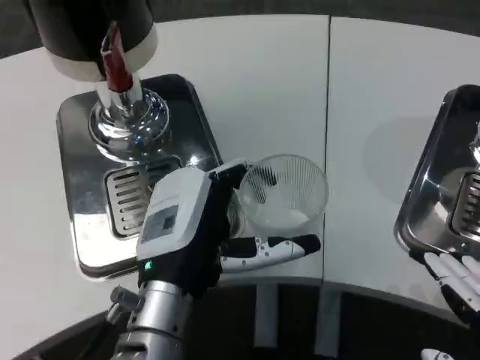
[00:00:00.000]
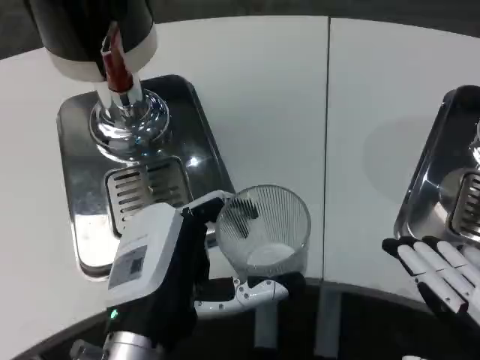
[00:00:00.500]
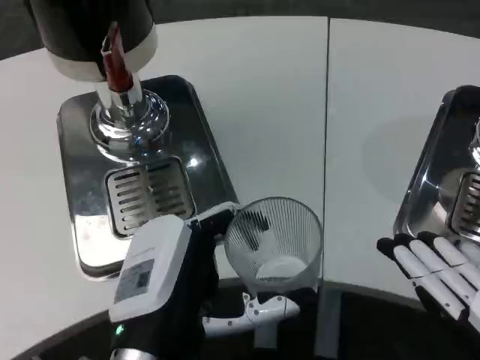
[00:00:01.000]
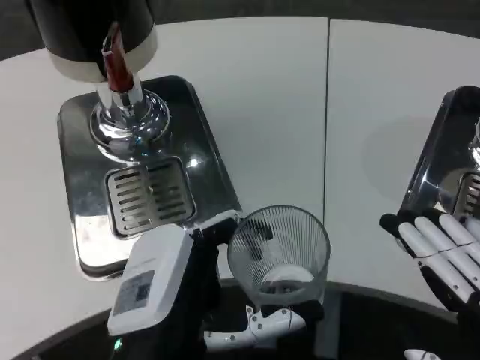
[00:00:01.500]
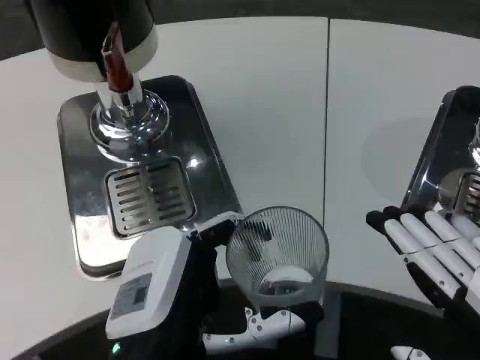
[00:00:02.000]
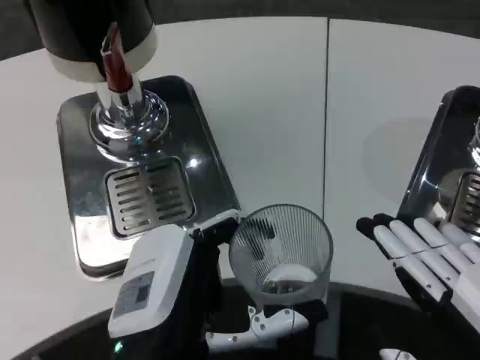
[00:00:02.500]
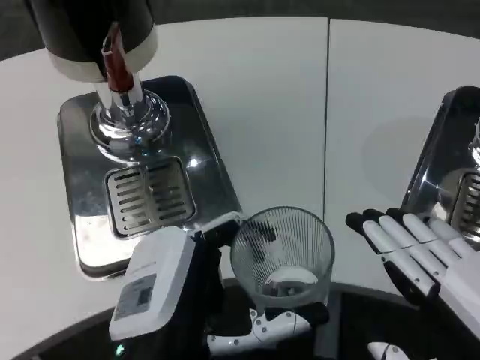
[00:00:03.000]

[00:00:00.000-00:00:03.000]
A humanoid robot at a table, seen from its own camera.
Task of the whole recording: Grasp the cup under the faucet to collect the drink, then remove the cup.
00:00:00.000 to 00:00:01.500: The left hand shifts roughly 10 cm backward.
00:00:01.500 to 00:00:03.000: The hands make only small movements.

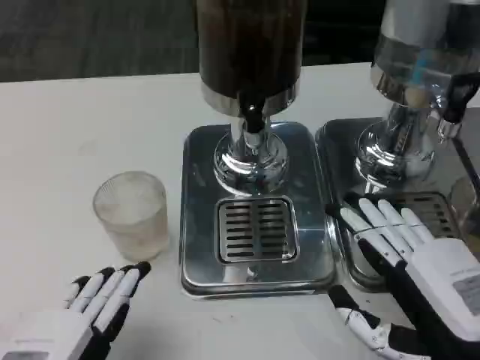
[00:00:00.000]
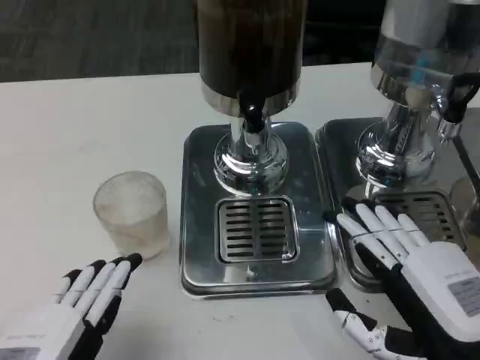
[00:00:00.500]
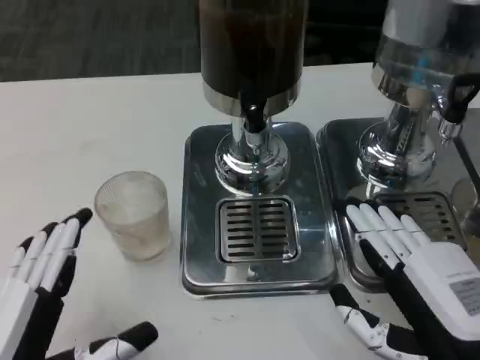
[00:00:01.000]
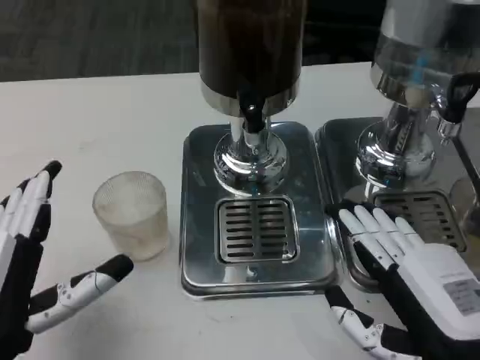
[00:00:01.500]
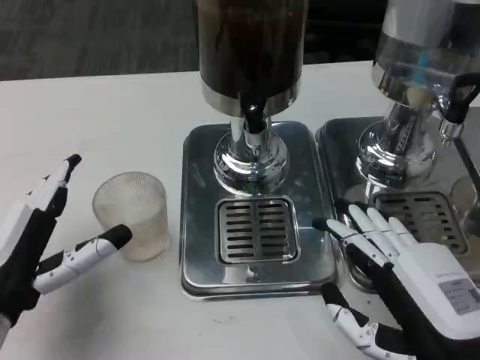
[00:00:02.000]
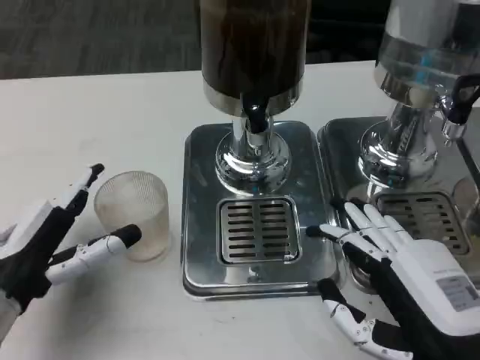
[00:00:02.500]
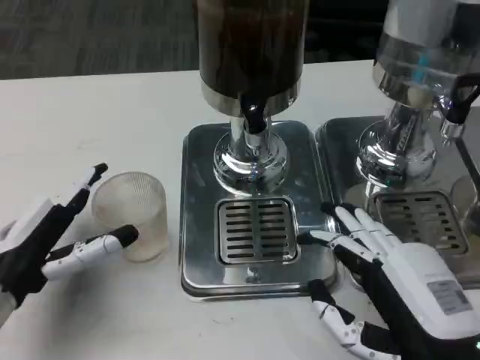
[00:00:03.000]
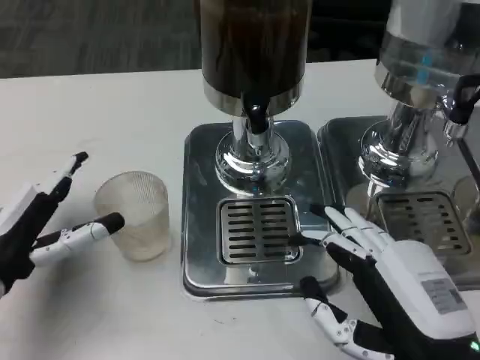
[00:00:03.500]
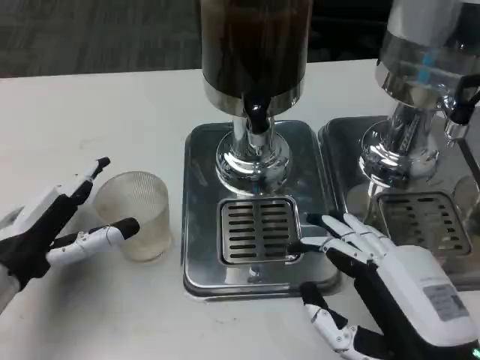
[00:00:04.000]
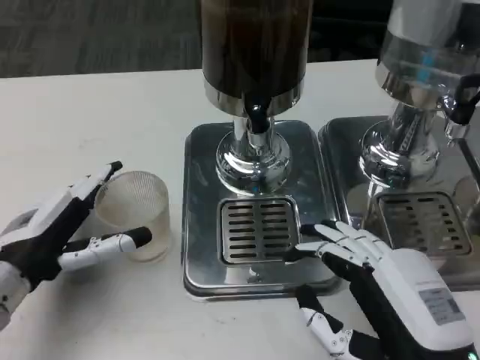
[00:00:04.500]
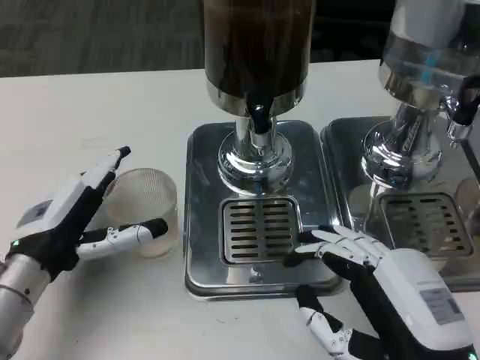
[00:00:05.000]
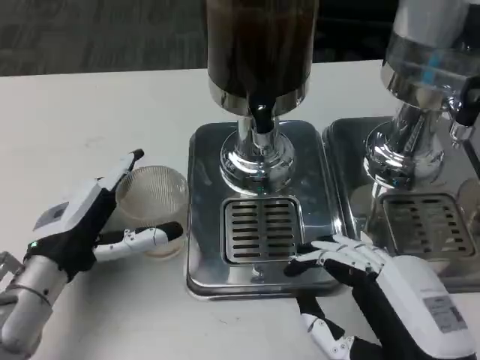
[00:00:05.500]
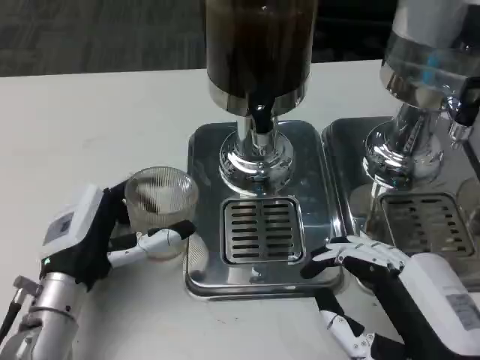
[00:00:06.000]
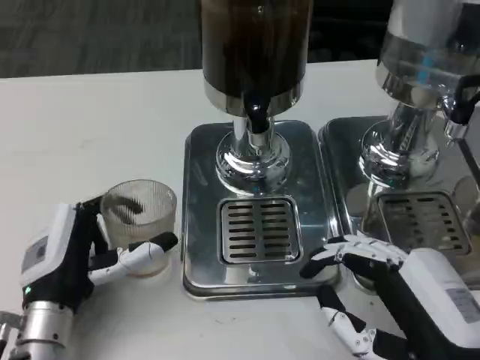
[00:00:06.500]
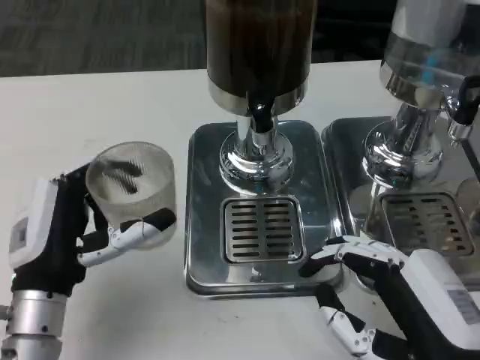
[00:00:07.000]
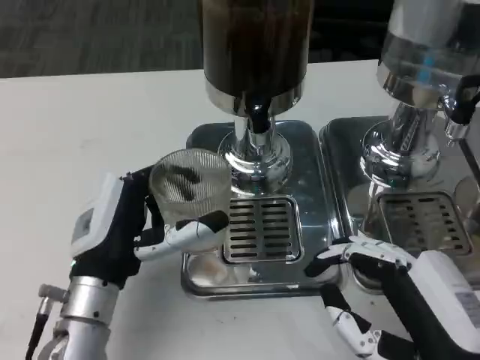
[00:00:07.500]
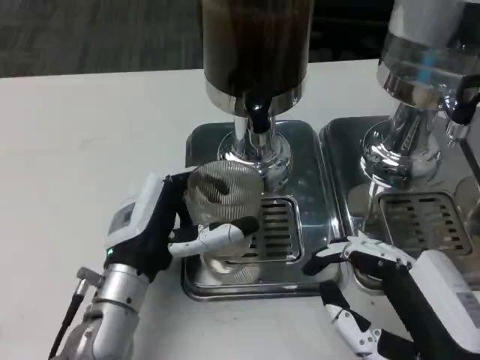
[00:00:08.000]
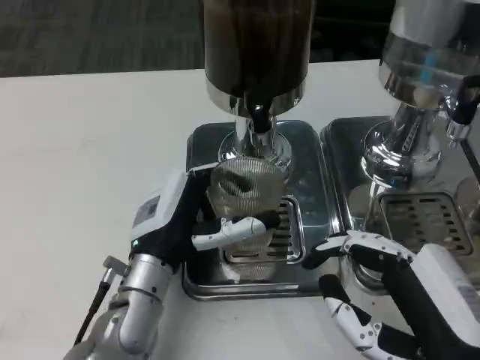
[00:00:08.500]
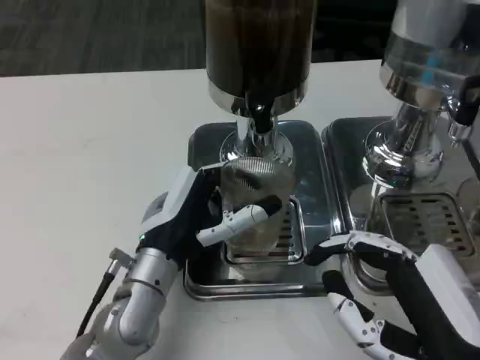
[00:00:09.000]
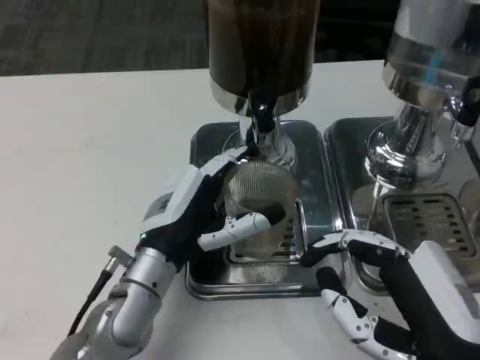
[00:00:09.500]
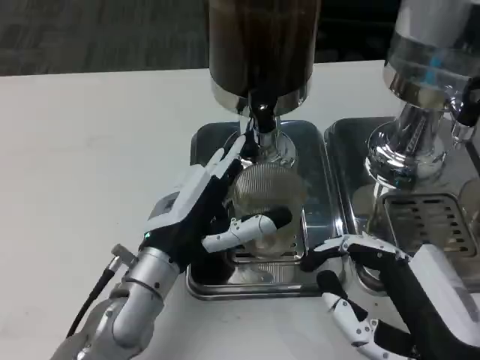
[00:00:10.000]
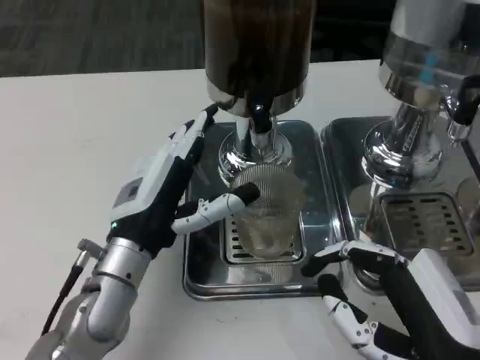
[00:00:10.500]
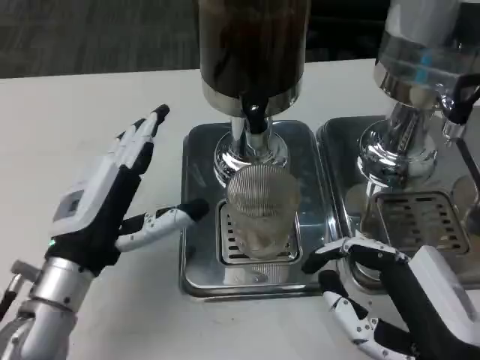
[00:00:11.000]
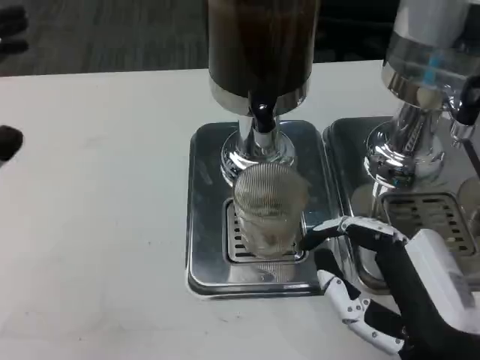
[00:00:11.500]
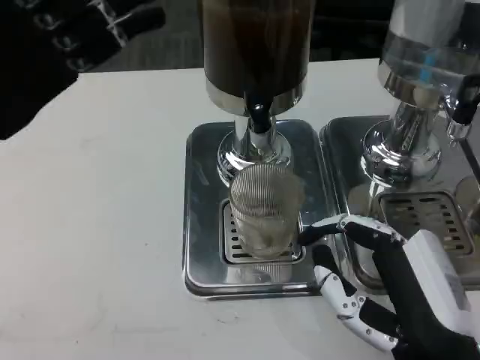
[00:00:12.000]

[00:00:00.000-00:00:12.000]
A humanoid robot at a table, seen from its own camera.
Task of the whole recording: Grasp the cup under the faucet to collect the drink, then remove the cup.
00:00:00.000 to 00:00:02.000: The left hand travels forward by approximately 10 cm.
00:00:02.000 to 00:00:04.000: The left hand moves forward, roughly 5 cm.
00:00:04.000 to 00:00:06.000: The left hand is displaced to the right by approximately 5 cm.
00:00:06.000 to 00:00:08.000: The left hand heads to the right, covering approximately 5 cm.
00:00:10.000 to 00:00:12.000: The left hand moves upward and to the left, roughly 25 cm.

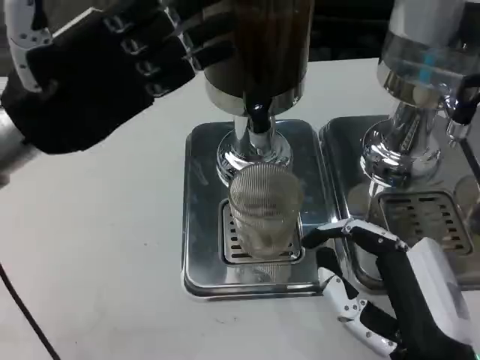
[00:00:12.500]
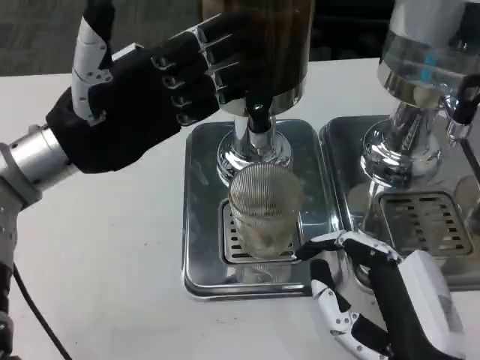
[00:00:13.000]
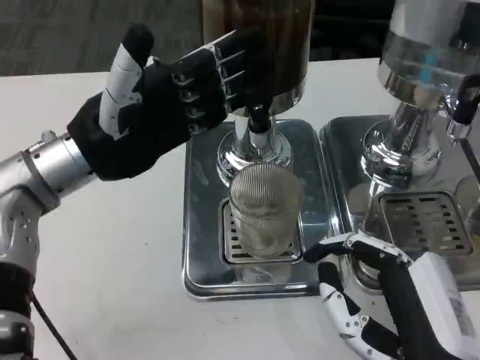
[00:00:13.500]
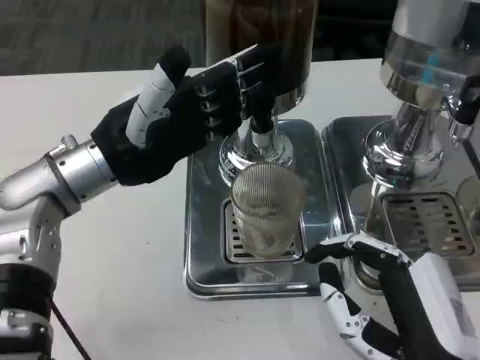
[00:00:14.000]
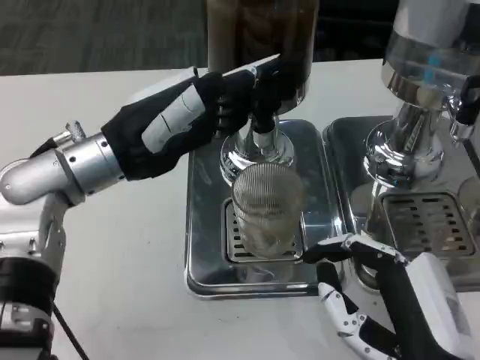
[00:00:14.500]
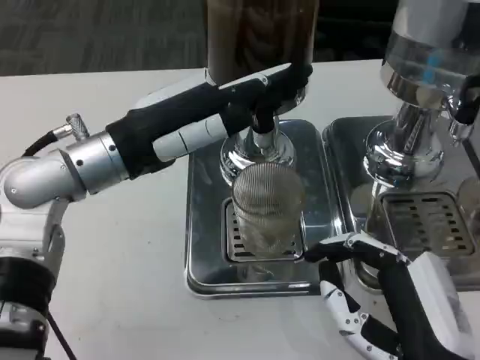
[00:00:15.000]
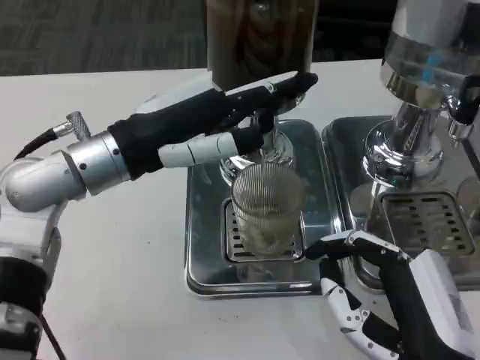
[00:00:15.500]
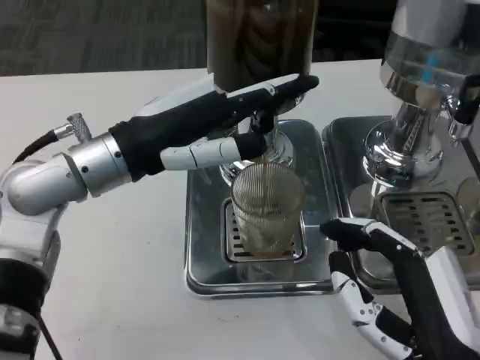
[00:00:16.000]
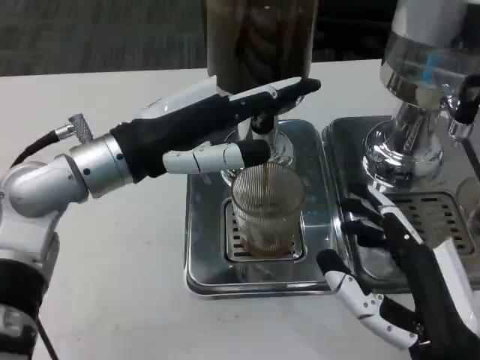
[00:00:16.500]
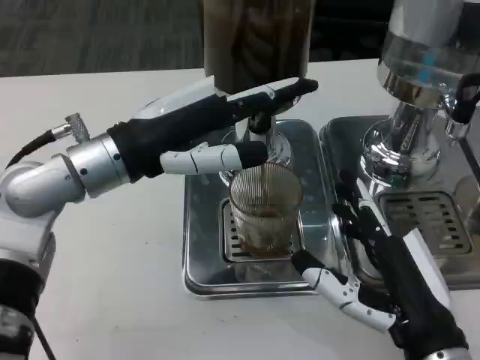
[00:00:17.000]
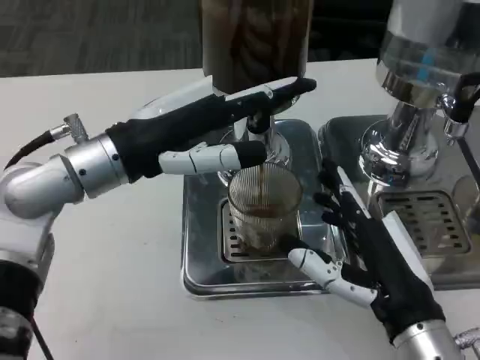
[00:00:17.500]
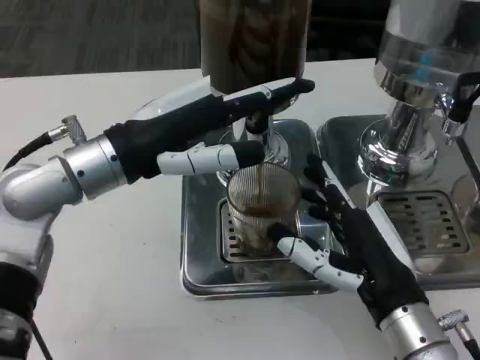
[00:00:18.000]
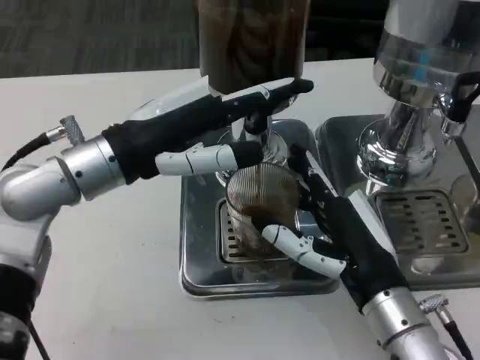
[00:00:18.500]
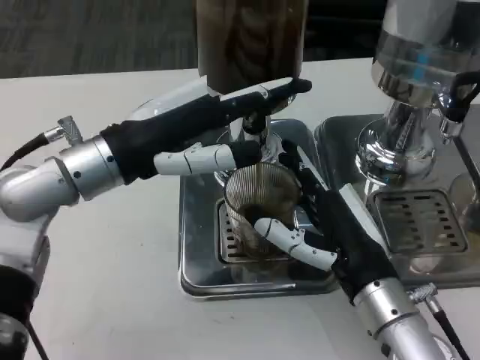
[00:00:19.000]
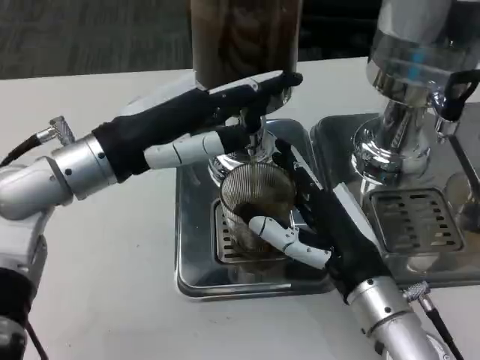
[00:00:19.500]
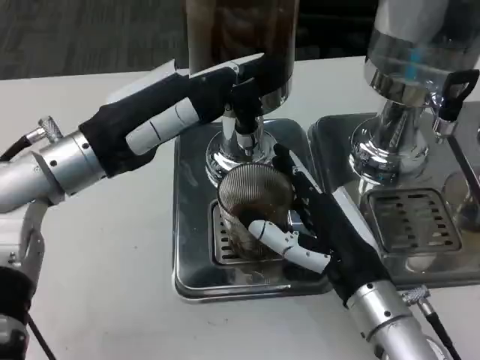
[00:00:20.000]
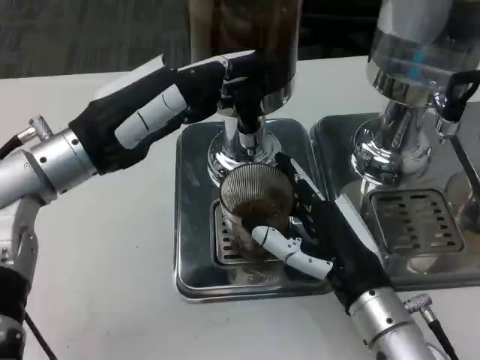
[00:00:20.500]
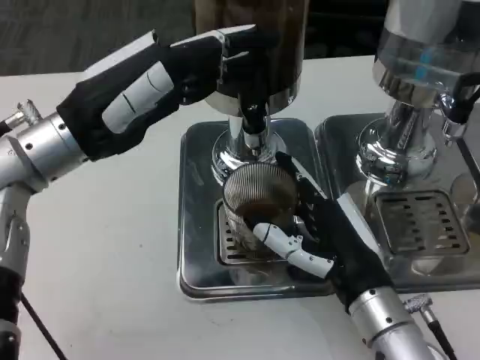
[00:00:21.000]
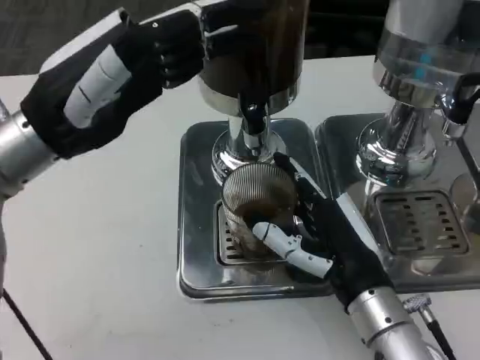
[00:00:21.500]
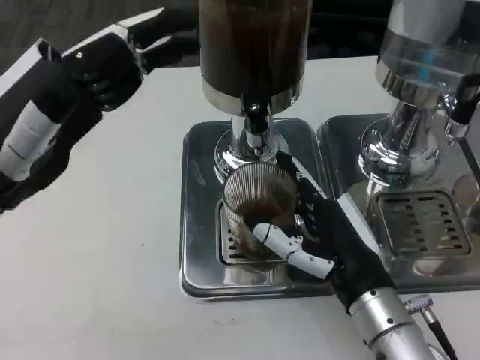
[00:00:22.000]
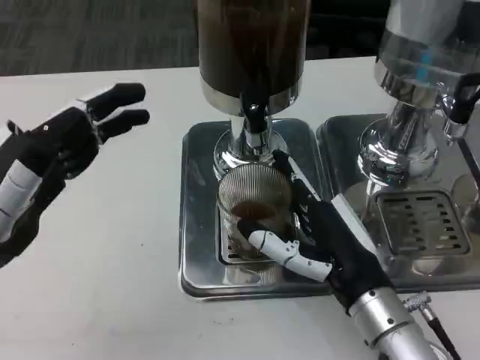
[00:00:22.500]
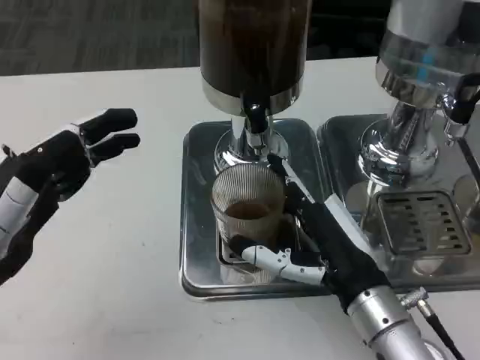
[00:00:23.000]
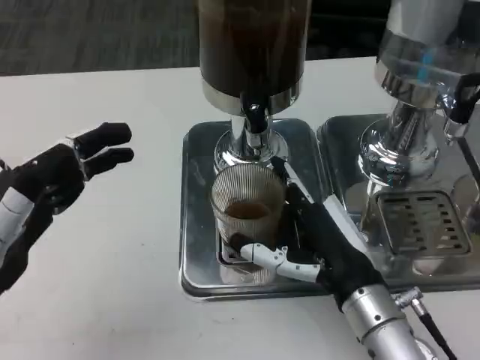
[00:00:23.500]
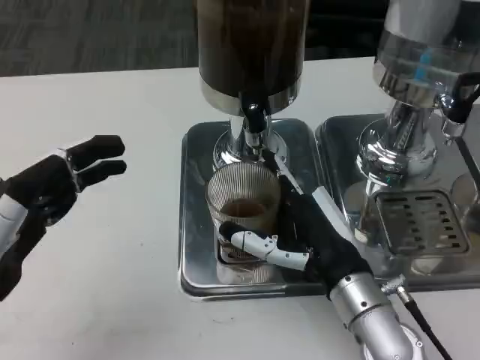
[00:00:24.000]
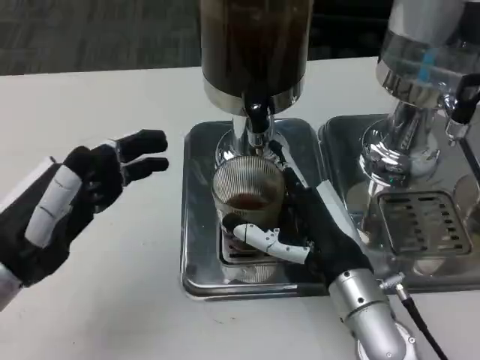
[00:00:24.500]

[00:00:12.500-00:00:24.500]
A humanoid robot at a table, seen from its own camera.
Task of the whole recording: Grasp the cup under the faucet to collect the drink, then remove the cup.
00:00:12.500 to 00:00:14.500: The left hand is displaced to the right by approximately 5 cm.
00:00:16.500 to 00:00:18.500: The right hand goes approximately 10 cm forward.
00:00:20.500 to 00:00:22.500: The left hand travels backward and to the left by approximately 15 cm.
